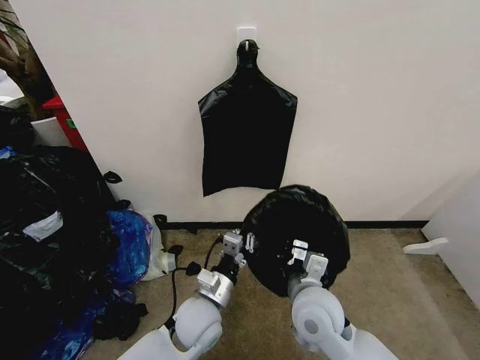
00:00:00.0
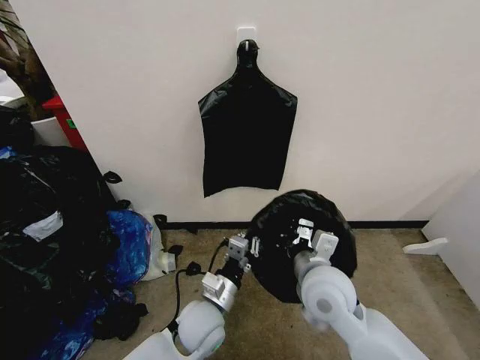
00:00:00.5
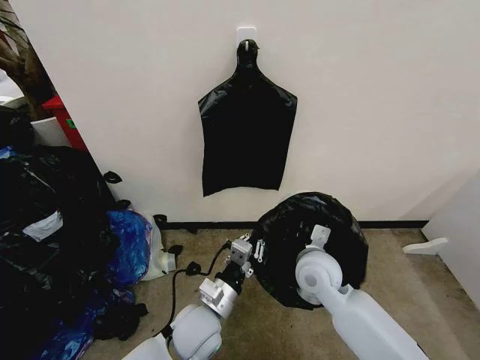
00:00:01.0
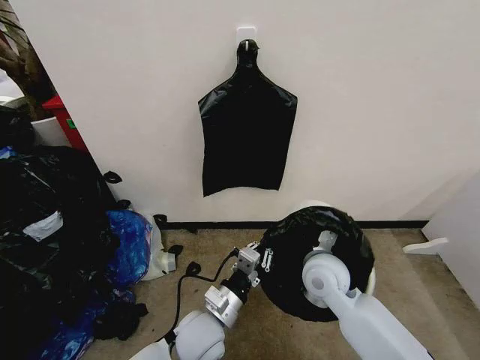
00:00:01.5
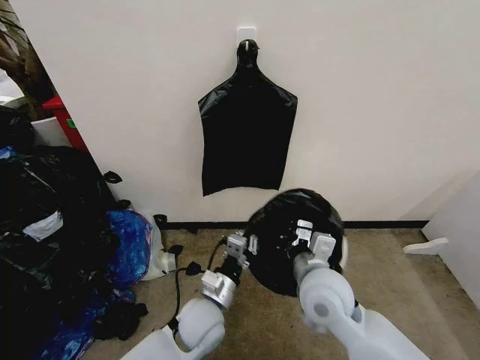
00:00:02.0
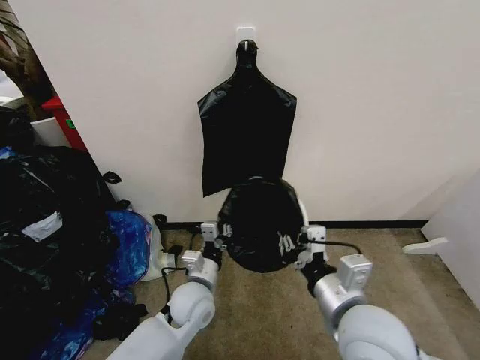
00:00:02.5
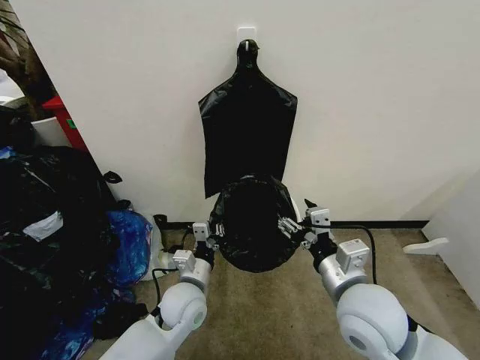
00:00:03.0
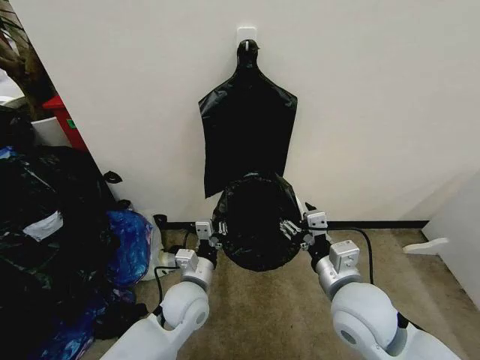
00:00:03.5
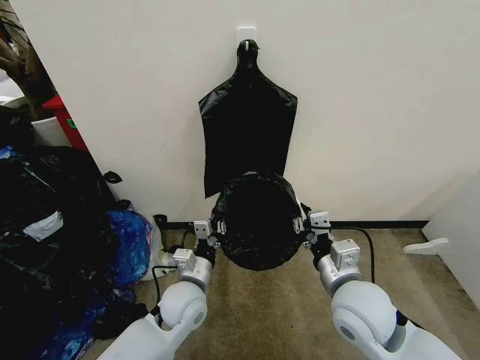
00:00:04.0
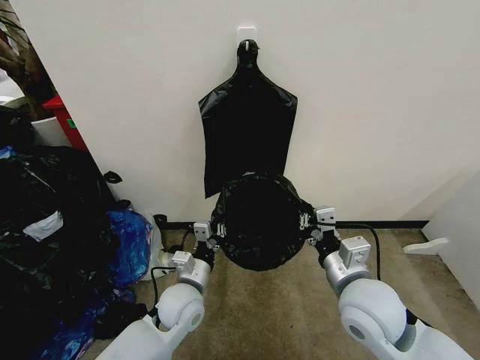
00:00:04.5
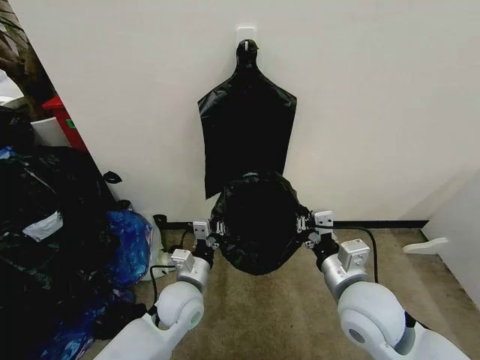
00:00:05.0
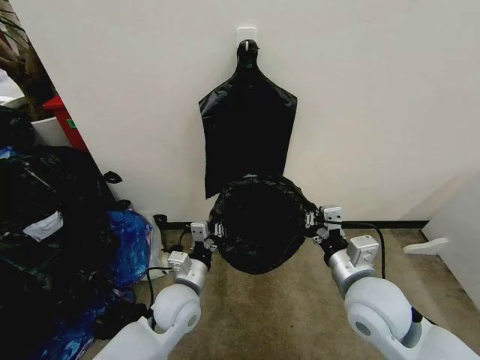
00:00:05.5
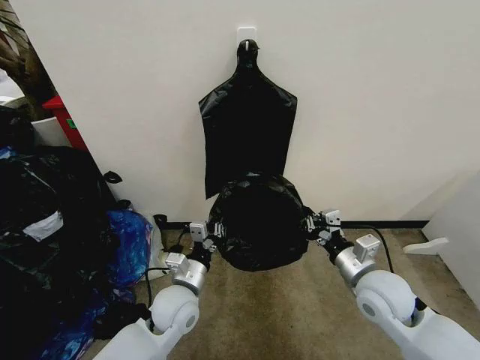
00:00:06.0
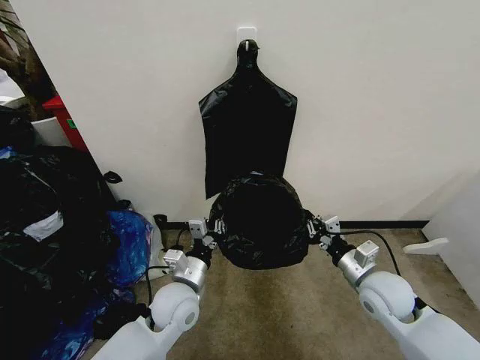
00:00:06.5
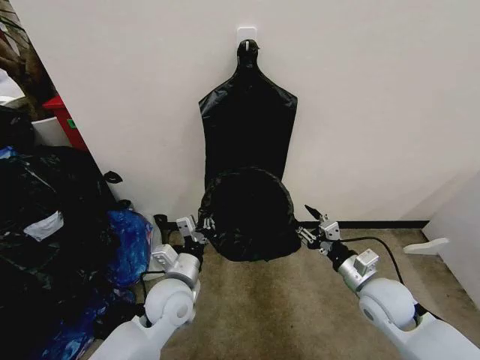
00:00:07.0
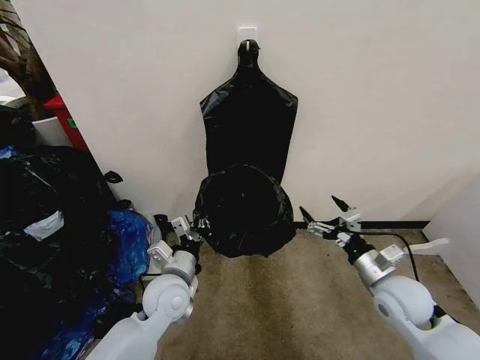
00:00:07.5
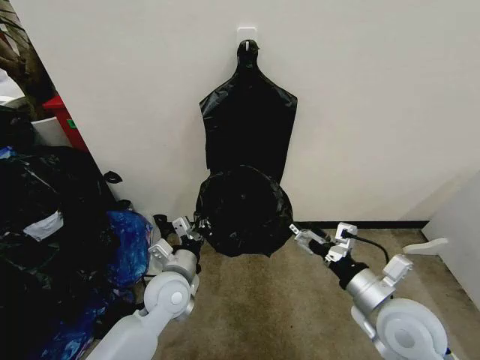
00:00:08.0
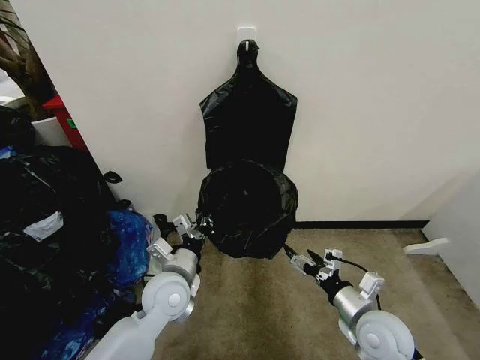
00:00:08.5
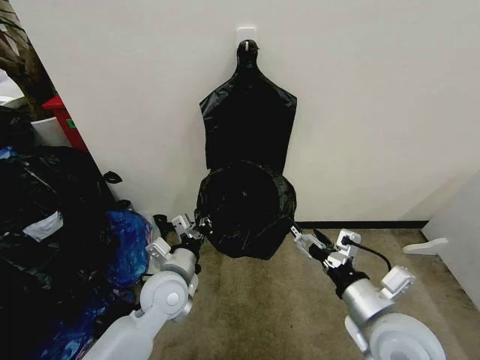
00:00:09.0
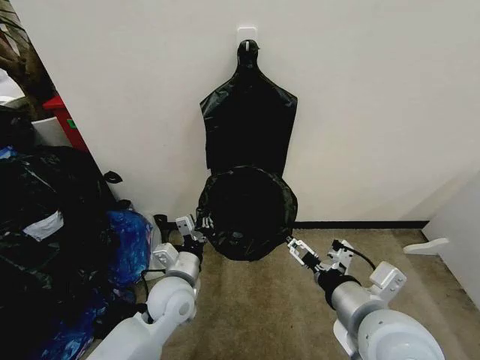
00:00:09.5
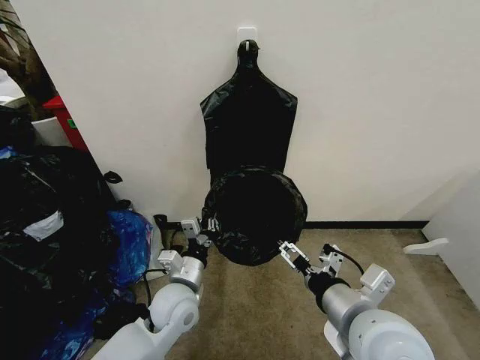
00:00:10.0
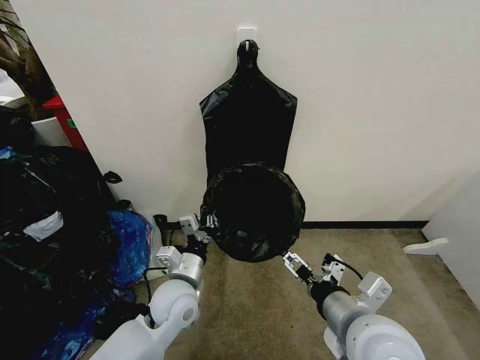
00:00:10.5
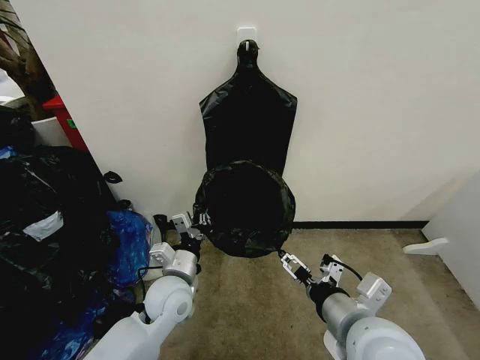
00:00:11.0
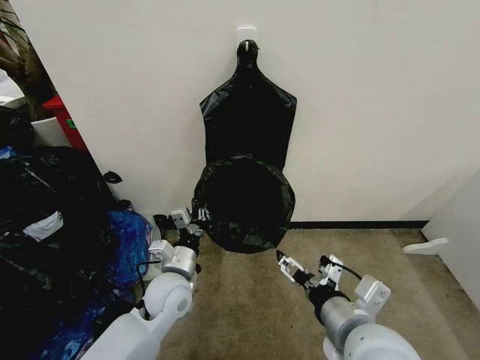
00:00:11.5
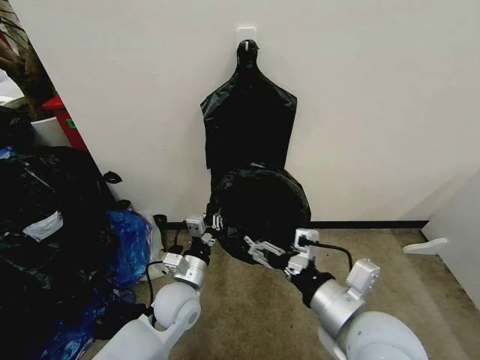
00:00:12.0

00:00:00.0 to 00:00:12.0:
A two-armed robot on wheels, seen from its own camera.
Task of the whole recording: Place the garbage bag over the trash bin.
00:00:00.0 to 00:00:02.0: The right gripper reaches about 10 cm forward, then returns.
00:00:02.0 to 00:00:04.0: The right gripper opens and closes again, while the left gripper ends up roughly 5 cm from where it was.
00:00:04.0 to 00:00:06.0: The right gripper shifts approximately 5 cm to the right.
00:00:06.0 to 00:00:08.0: The right gripper heads backward, covering some 5 cm, and opens its fingers.
00:00:08.0 to 00:00:10.0: The right gripper goes some 10 cm to the left and upward.

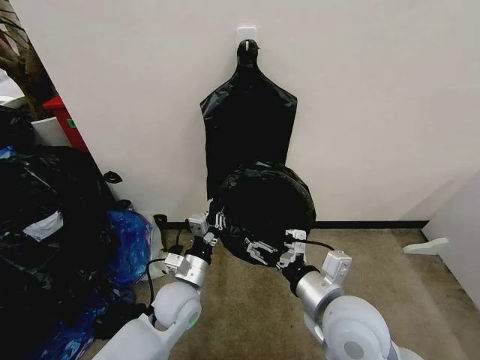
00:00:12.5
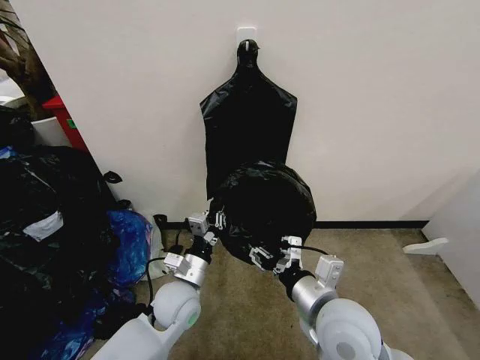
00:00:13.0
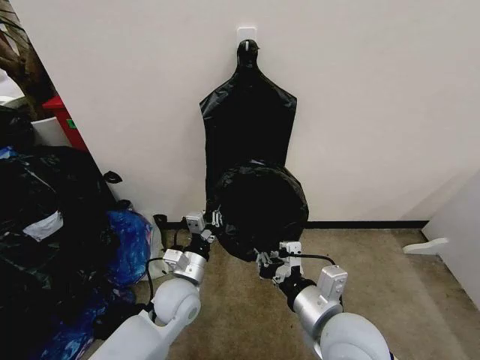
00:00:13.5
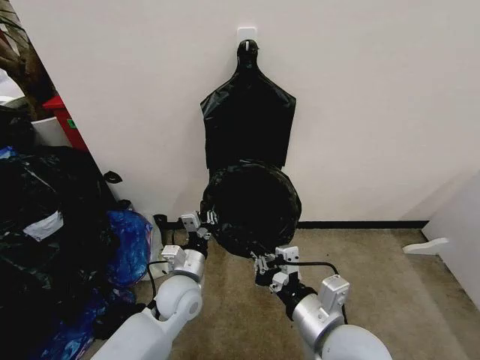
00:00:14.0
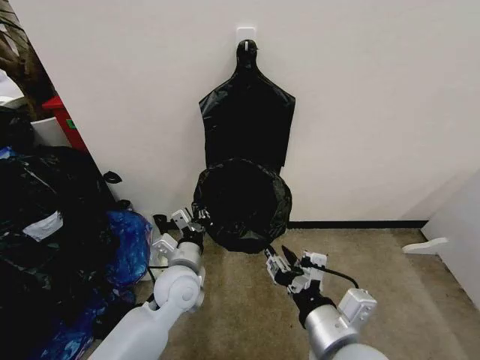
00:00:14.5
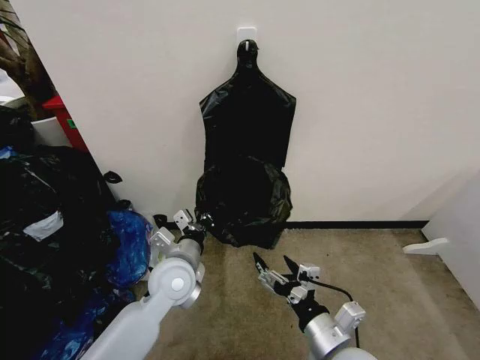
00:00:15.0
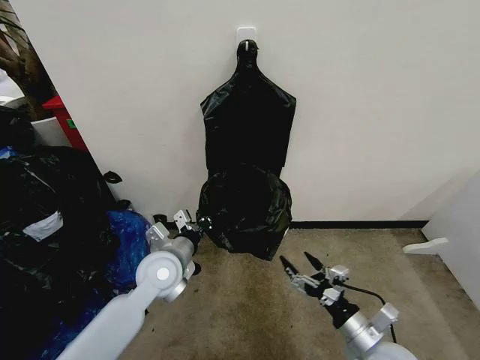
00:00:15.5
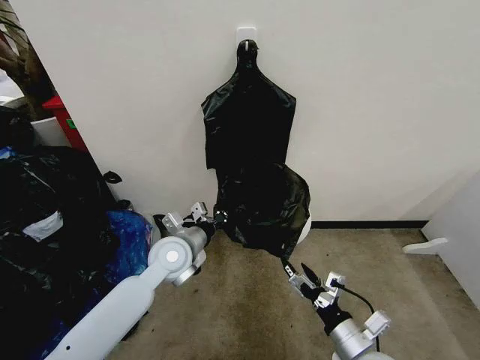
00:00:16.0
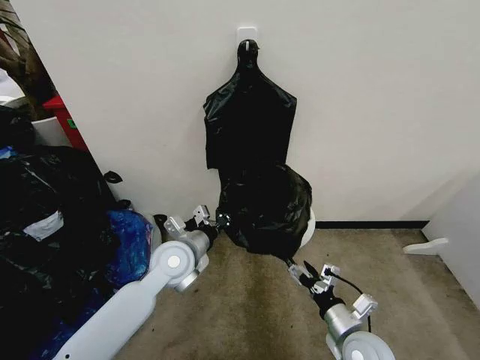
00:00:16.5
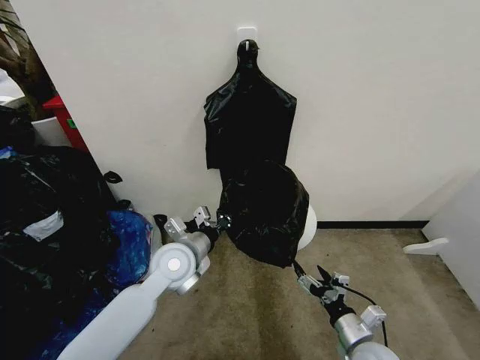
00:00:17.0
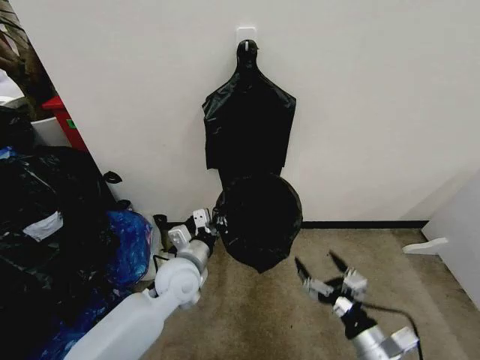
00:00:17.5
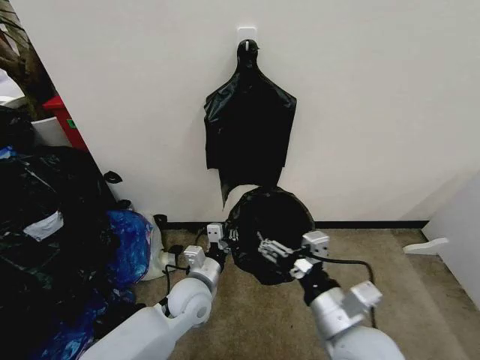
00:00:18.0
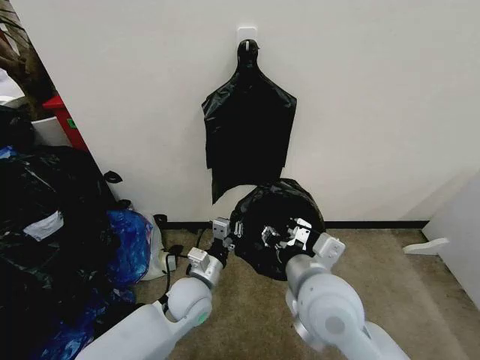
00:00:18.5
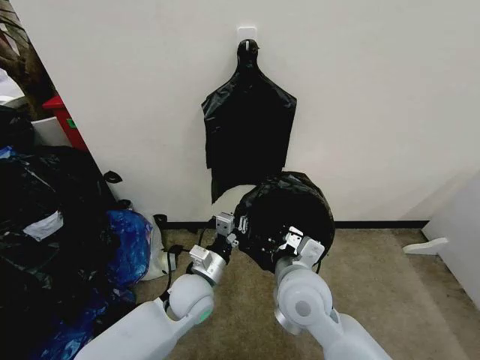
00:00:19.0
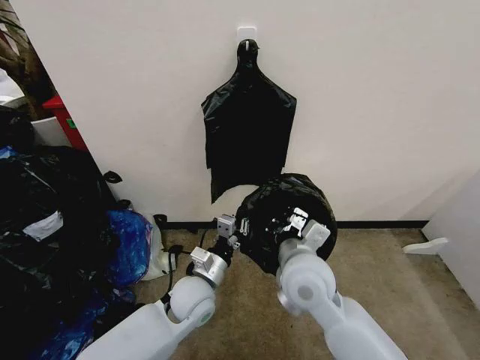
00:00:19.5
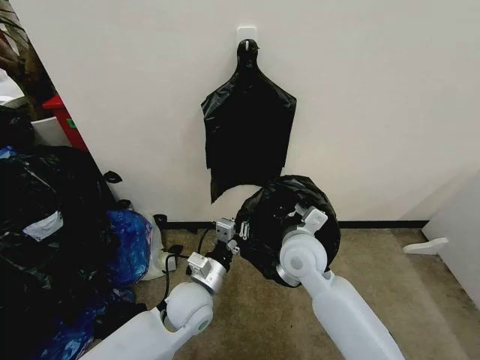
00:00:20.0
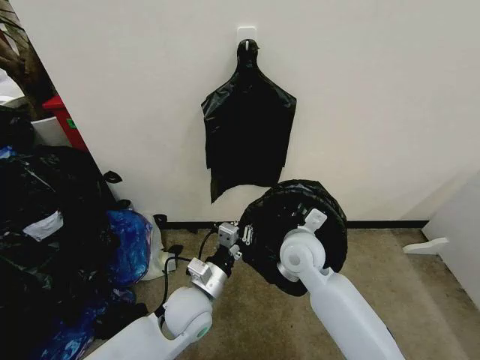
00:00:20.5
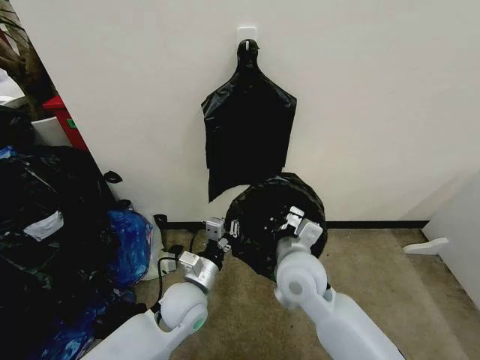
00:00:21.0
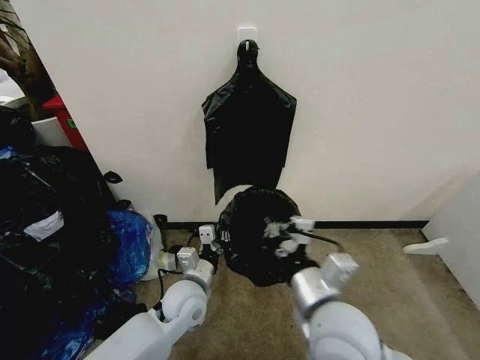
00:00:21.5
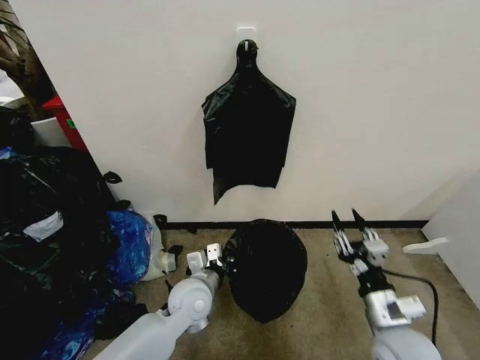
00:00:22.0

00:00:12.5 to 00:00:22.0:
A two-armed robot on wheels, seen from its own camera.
Task of the whole recording: Place the garbage bag over the trash bin.
00:00:12.5 to 00:00:14.5: The right gripper is displaced backward by roughly 5 cm, and closes up.
00:00:14.5 to 00:00:16.5: The right gripper heads downward and to the right, covering about 20 cm, and opens its fingers. Meanwhile the left gripper ends up roughly 5 cm from where it was.
00:00:16.5 to 00:00:18.0: The right gripper heads upward and to the left, covering about 20 cm, while the left gripper moves downward, about 10 cm.
00:00:18.0 to 00:00:20.0: The right gripper is displaced forward by some 20 cm, and closes its fingers.
00:00:20.0 to 00:00:22.0: The right gripper is displaced to the right, backward and downward by some 25 cm, and opens up.

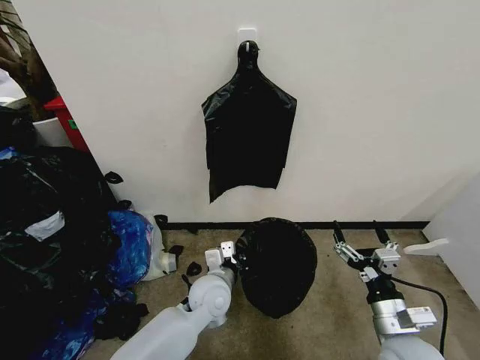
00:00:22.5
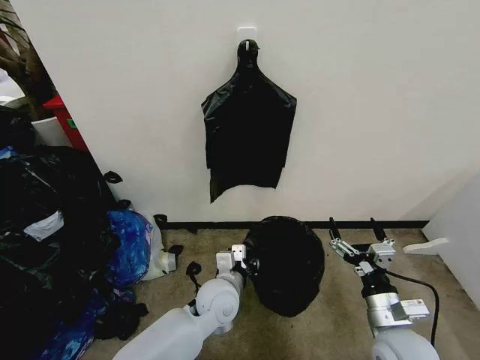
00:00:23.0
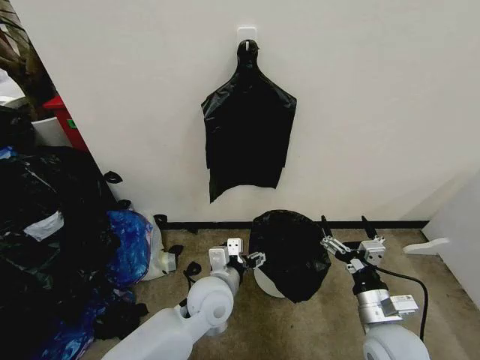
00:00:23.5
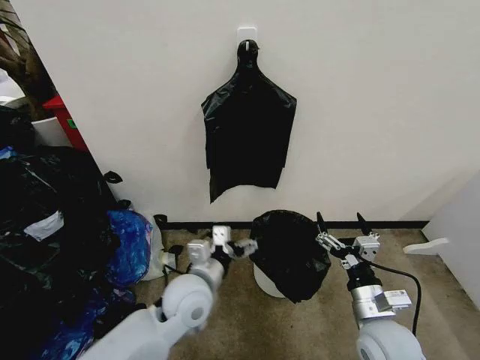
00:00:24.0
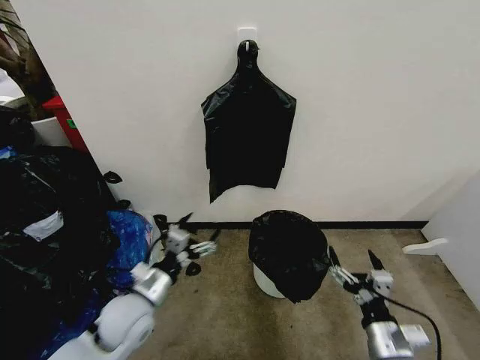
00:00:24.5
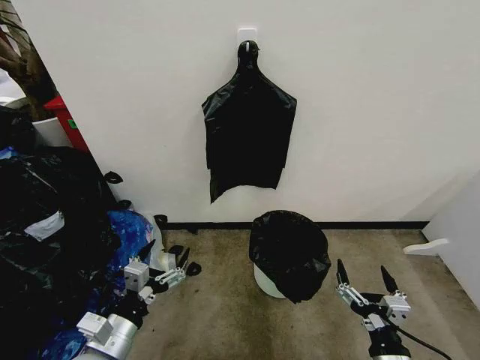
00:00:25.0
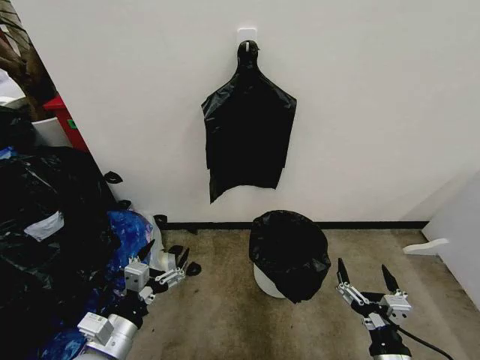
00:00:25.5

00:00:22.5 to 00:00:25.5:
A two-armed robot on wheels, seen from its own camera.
Task of the whole recording: Place the garbage bag over the trash bin.
00:00:22.5 to 00:00:24.0: The left gripper shifts about 10 cm upward and to the left, and opens up.
00:00:24.0 to 00:00:25.5: The left gripper is displaced to the left and backward by some 20 cm, while the right gripper shifts roughly 10 cm backward.

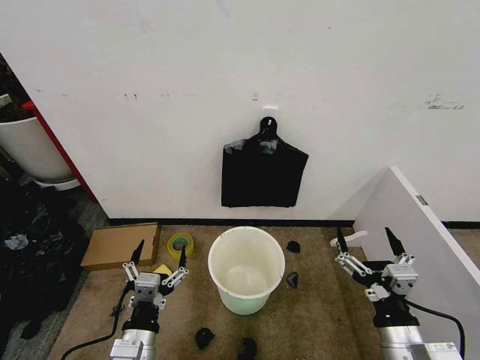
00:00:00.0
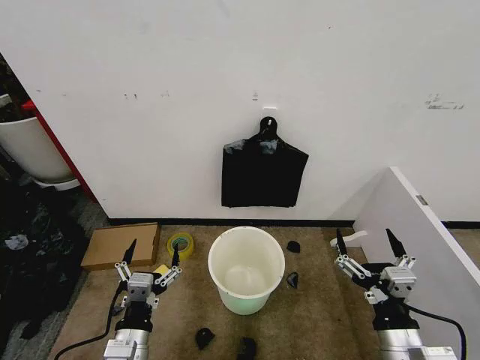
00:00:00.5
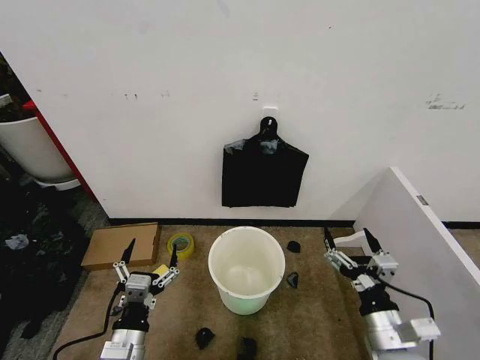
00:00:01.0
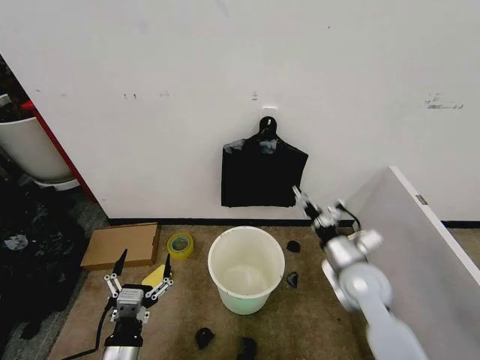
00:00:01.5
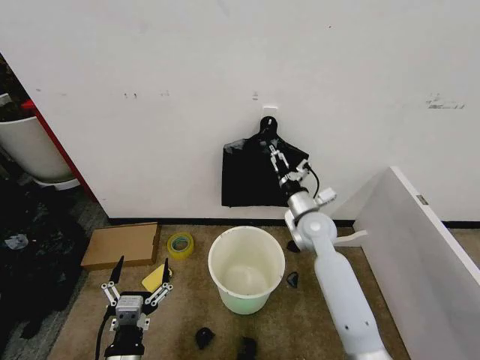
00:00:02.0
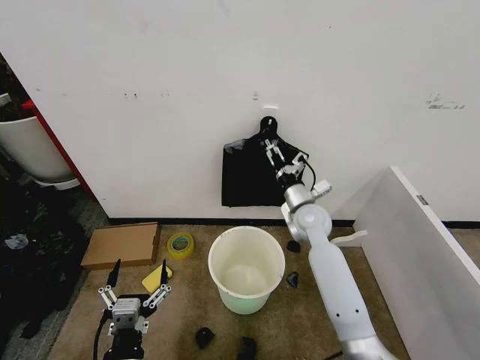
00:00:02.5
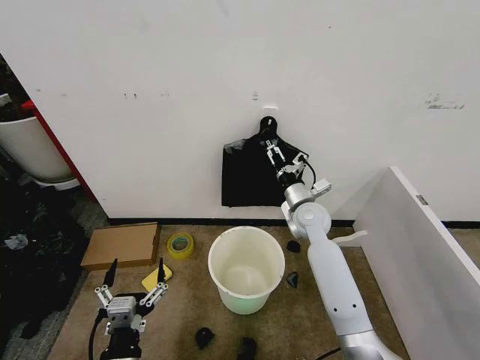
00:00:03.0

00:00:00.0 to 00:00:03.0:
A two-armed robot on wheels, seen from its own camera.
Task of the whole recording: Place the garbage bag over the trash bin.
00:00:01.5 to 00:00:03.0: The right gripper moves forward and to the left, about 20 cm.
